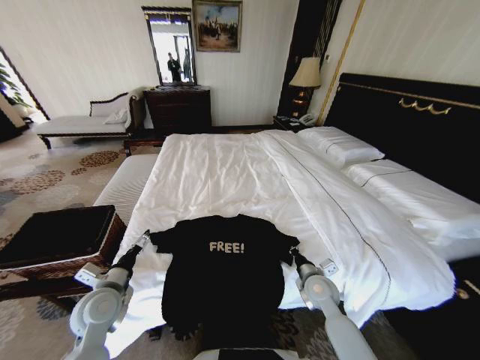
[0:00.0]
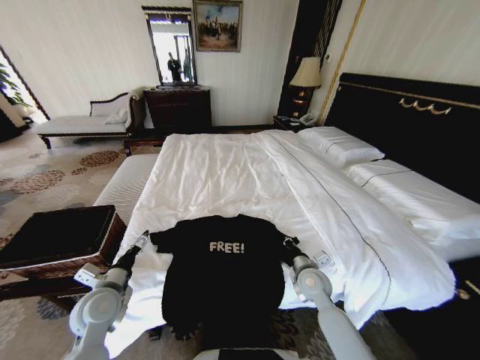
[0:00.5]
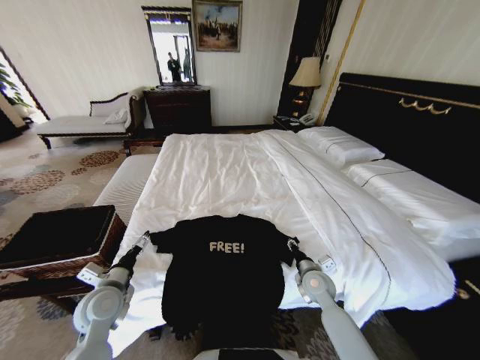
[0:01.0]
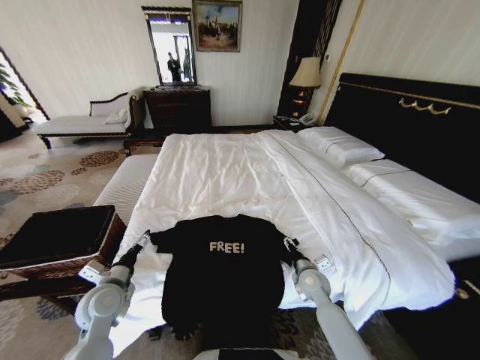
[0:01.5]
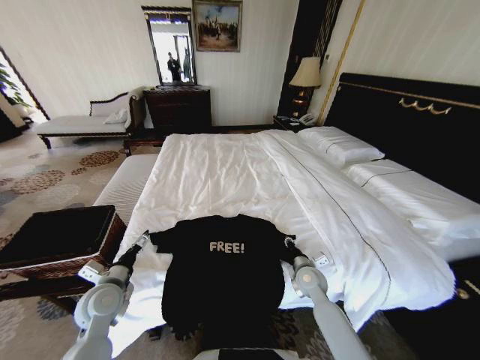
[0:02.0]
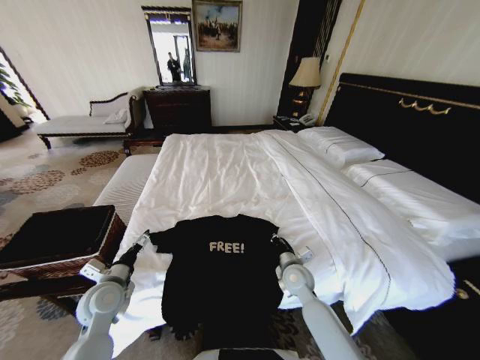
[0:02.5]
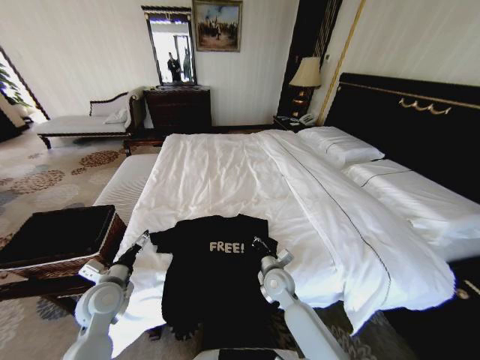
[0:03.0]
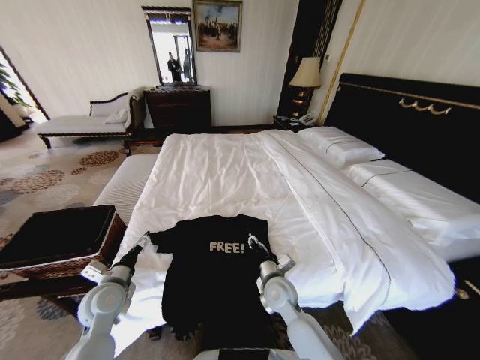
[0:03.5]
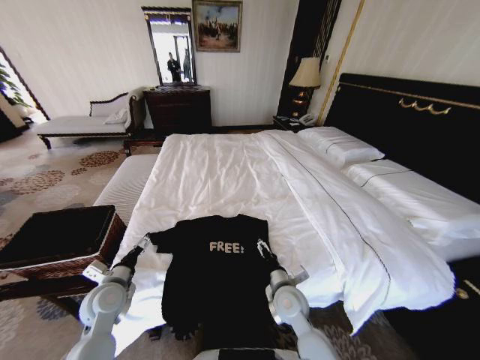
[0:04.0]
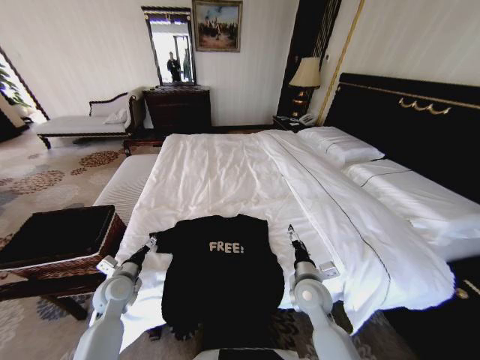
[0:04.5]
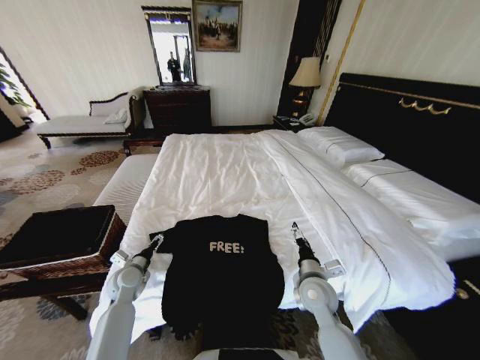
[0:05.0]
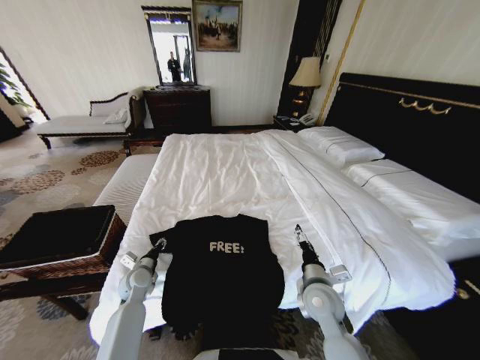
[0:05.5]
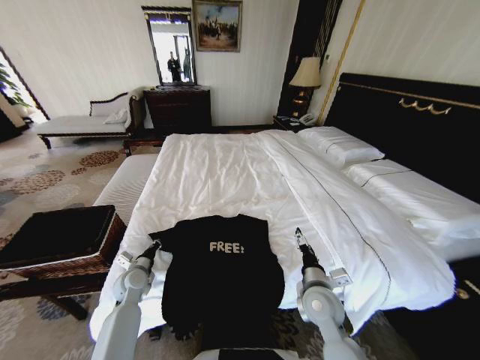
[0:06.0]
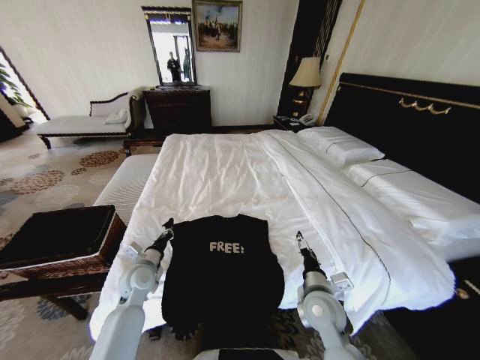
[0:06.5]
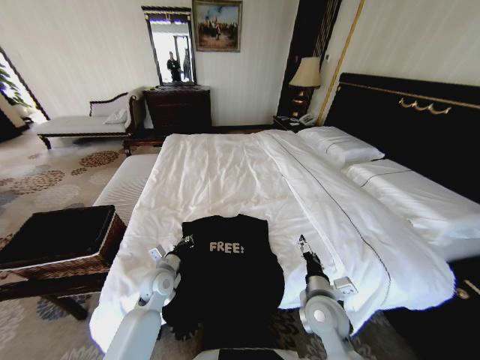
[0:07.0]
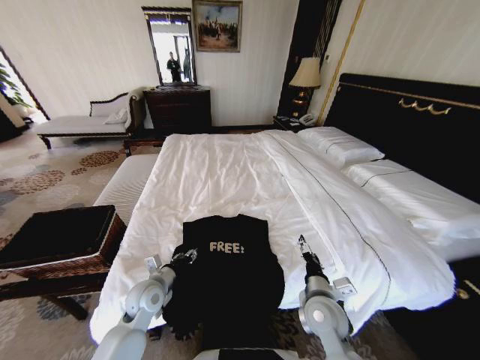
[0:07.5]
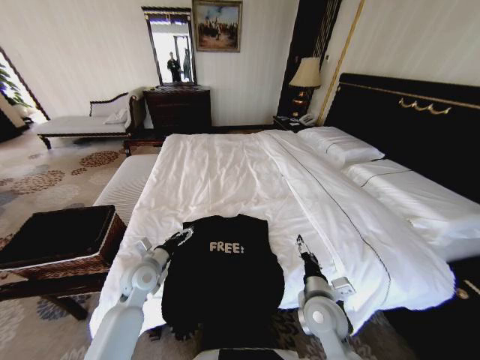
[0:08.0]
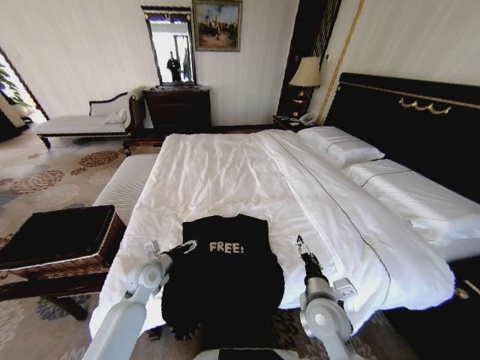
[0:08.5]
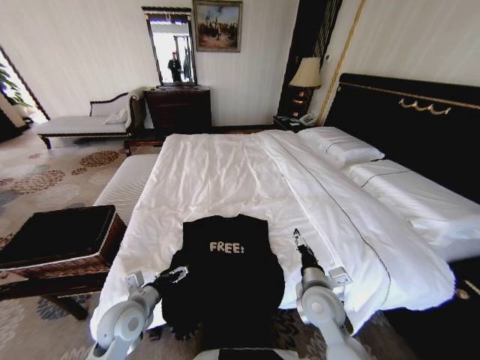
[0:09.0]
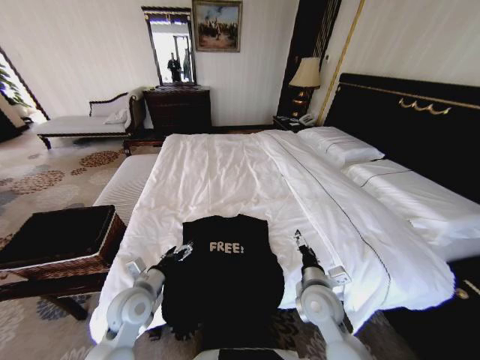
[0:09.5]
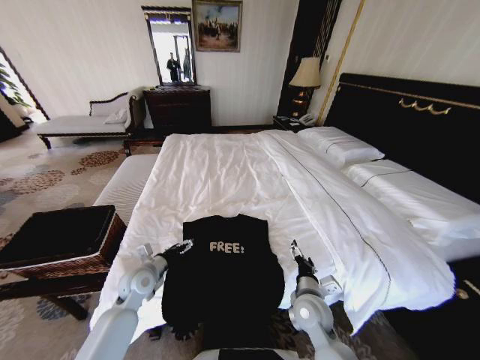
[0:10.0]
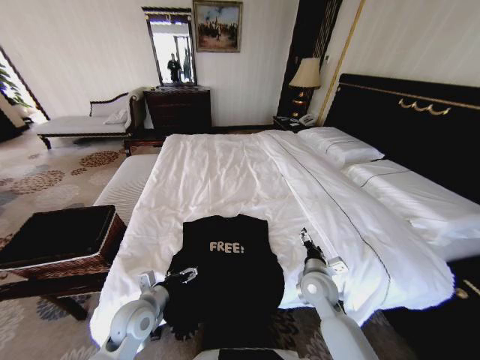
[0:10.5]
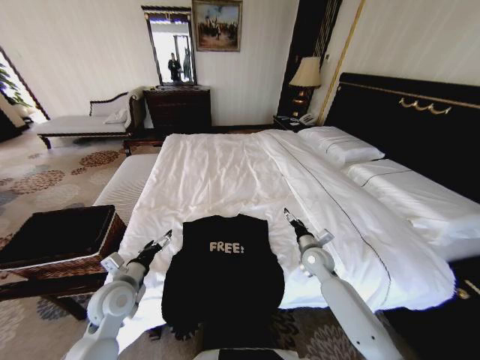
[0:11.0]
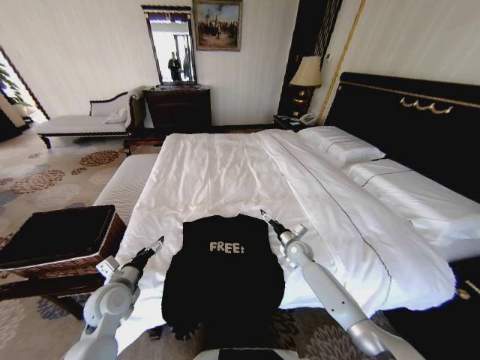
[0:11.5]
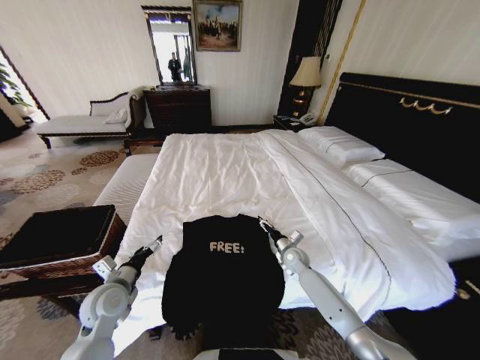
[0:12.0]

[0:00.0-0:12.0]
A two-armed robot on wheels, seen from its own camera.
Task of the whole recording: Fold the clothes on the bed and place them into the basket.
0:00.0 to 0:02.0: The right gripper opens.
0:02.0 to 0:04.0: The right gripper is displaced to the left and backward by some 10 cm, and opens.
0:04.0 to 0:06.0: The right gripper goes some 5 cm to the right. Meanwhile the left gripper travels downward and forward by approximately 10 cm, and closes.
0:06.0 to 0:08.0: The left gripper moves upward and to the right, approximately 10 cm, and opens.
0:08.0 to 0:10.0: The left gripper moves approximately 10 cm backward and comes back.
0:10.0 to 0:12.0: The right gripper shifts roughly 20 cm forward. The left gripper travels backward by roughly 5 cm.

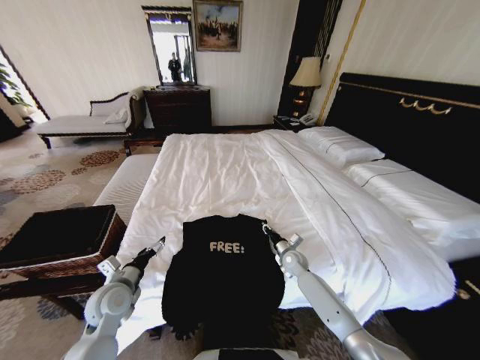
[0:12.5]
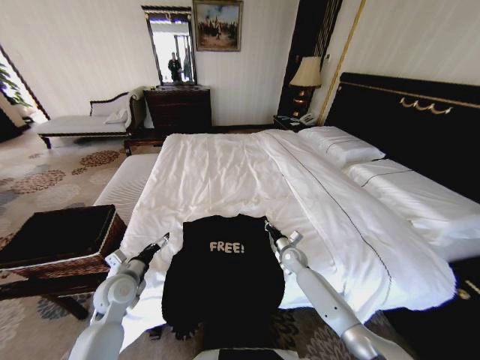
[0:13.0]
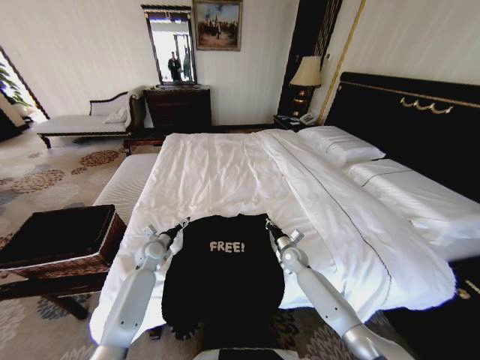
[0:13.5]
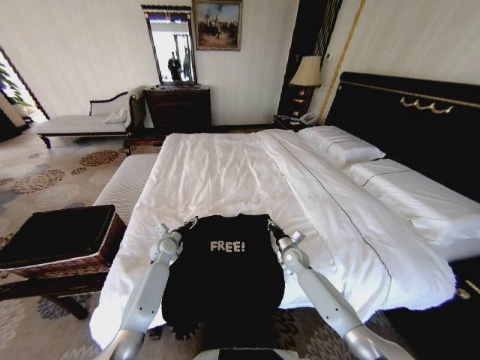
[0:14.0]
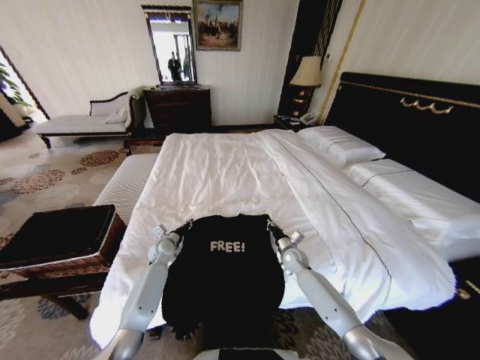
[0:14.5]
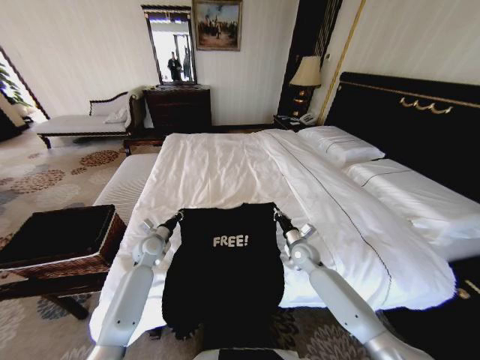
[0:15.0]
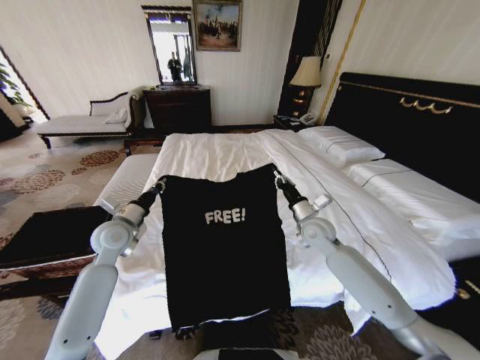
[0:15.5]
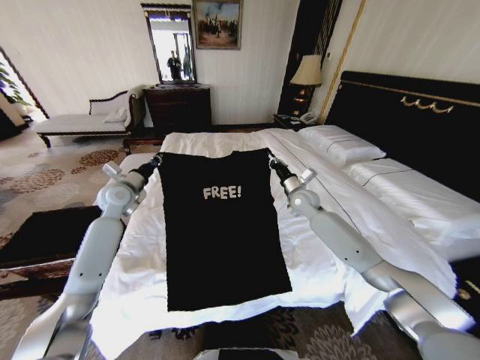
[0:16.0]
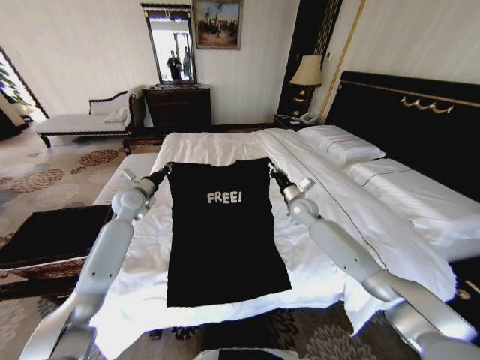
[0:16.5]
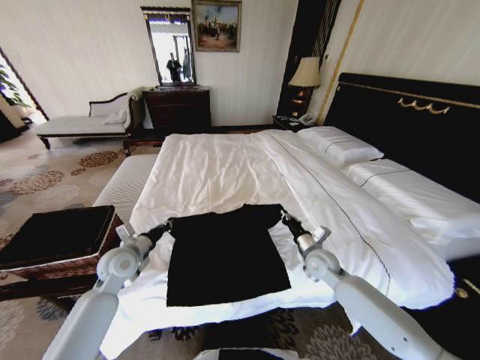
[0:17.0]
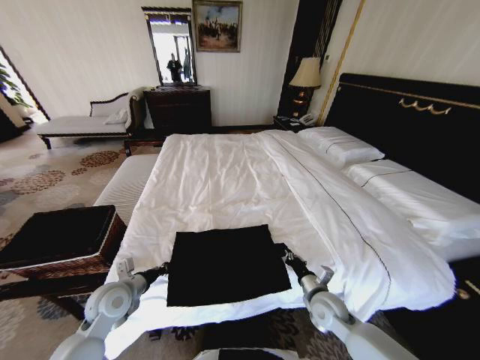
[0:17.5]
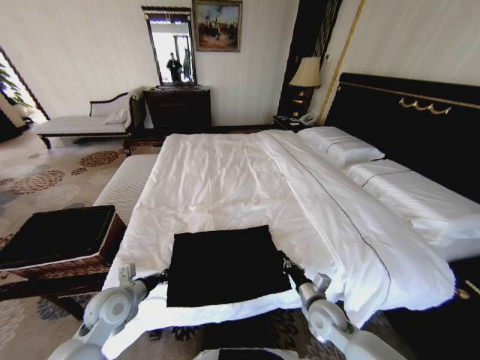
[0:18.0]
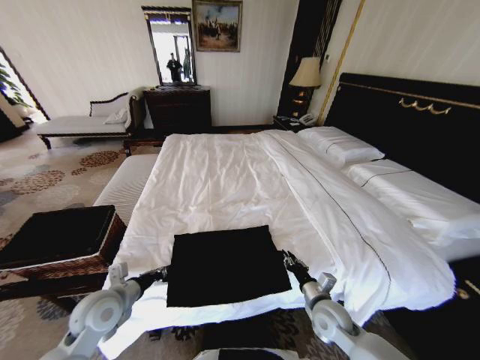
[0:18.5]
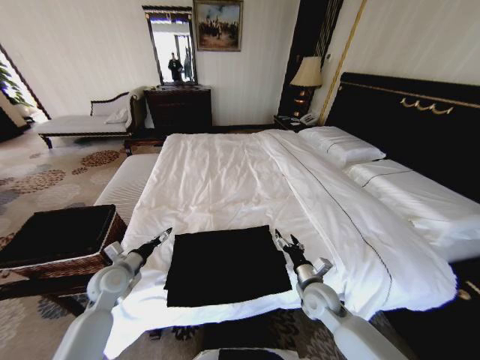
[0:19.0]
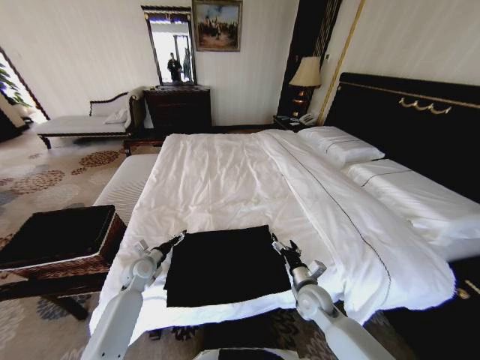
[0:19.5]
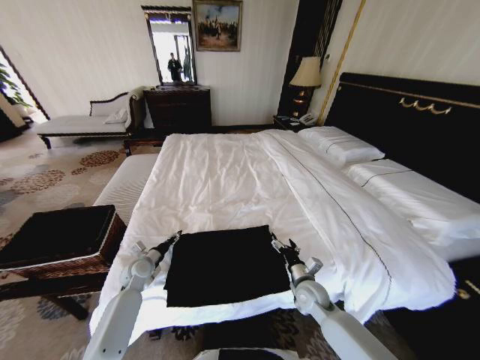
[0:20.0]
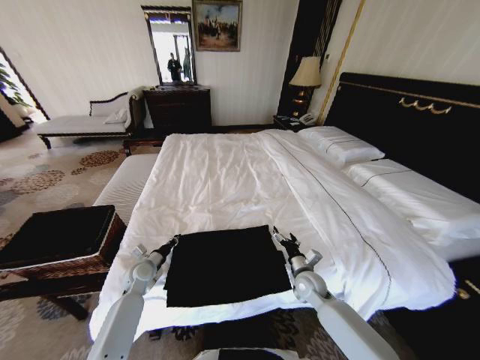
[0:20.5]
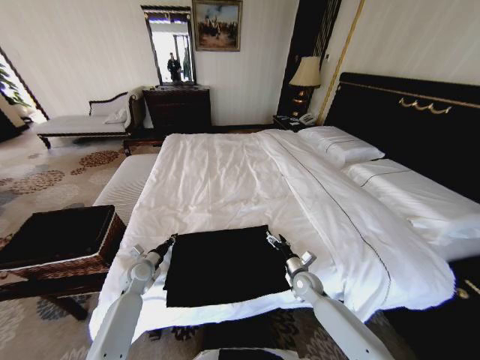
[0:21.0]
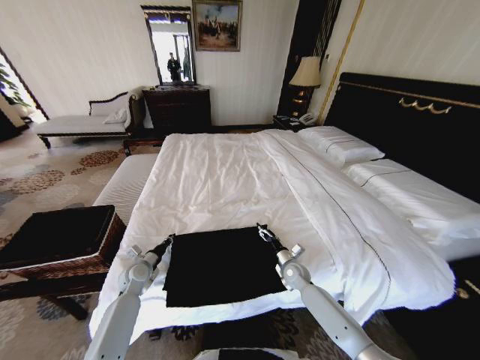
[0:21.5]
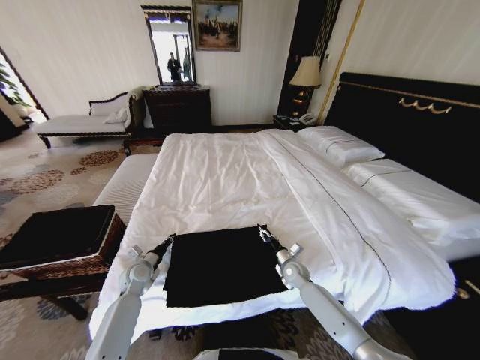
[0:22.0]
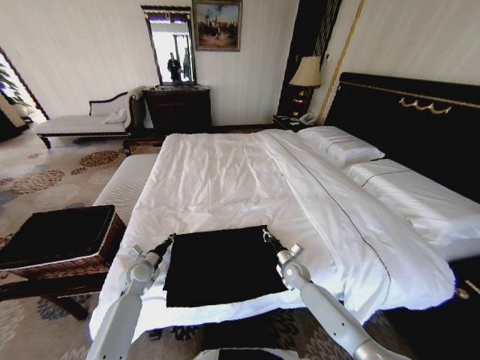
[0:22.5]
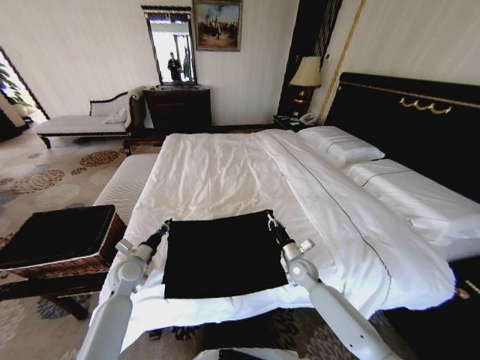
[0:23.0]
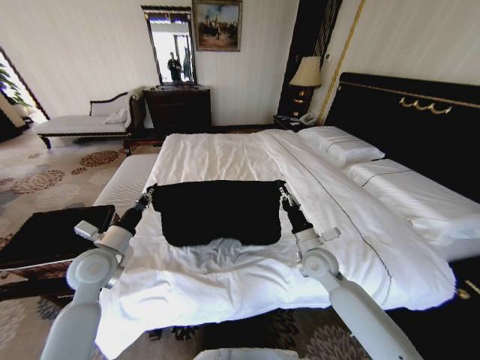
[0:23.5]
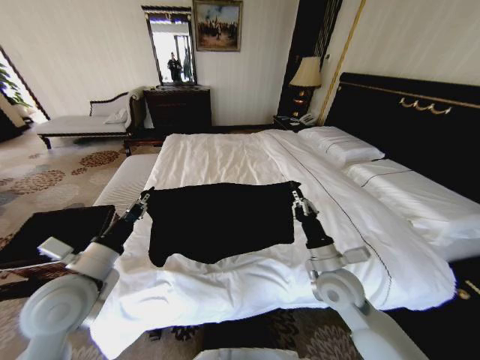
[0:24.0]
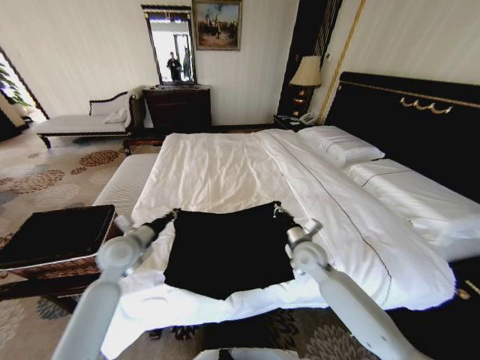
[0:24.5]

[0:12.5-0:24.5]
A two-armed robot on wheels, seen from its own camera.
Task of the whole recording: Fold the clothes on the bed and place them into the basket.
0:12.5 to 0:14.5: The left gripper moves forward and downward, roughly 20 cm, and closes.
0:14.5 to 0:16.5: The left gripper is displaced upward by roughly 20 cm; the right gripper shifts about 20 cm upward and forward.
0:16.5 to 0:18.5: The left gripper goes about 25 cm backward. Meanwhile the right gripper travels backward and downward by roughly 30 cm.
0:18.5 to 0:20.5: The right gripper heads forward, covering roughly 10 cm, and opens, while the left gripper heads forward and downward, covering approximately 20 cm, and opens, then closes again.
0:20.5 to 0:22.5: The right gripper is displaced downward and forward by approximately 10 cm, and closes.
0:22.5 to 0:24.5: The two grippers go some 20 cm upward.

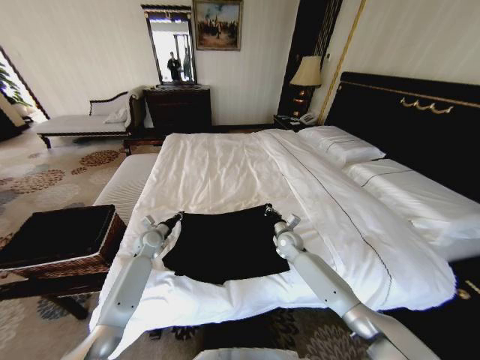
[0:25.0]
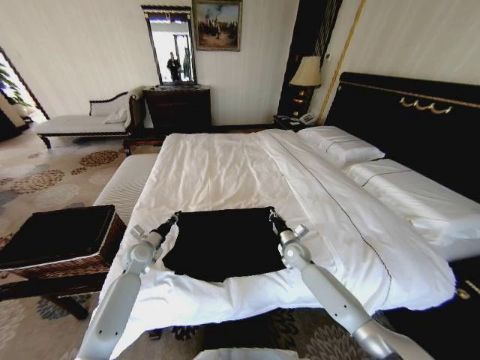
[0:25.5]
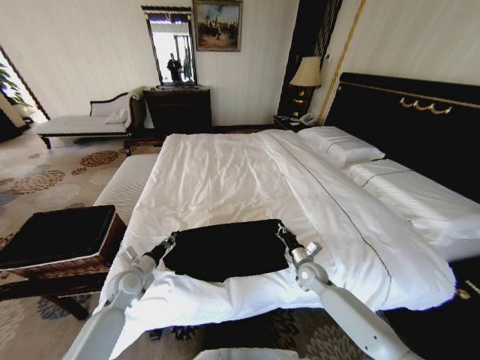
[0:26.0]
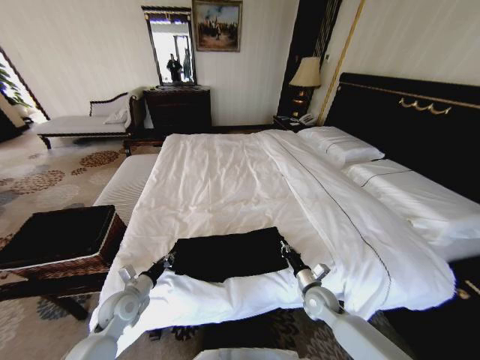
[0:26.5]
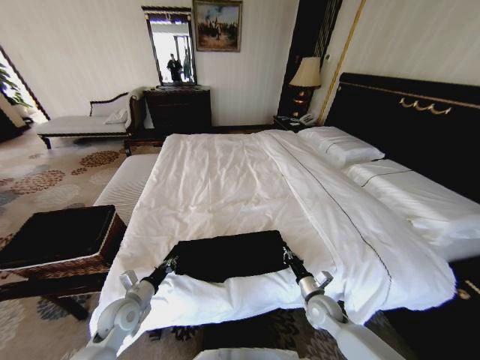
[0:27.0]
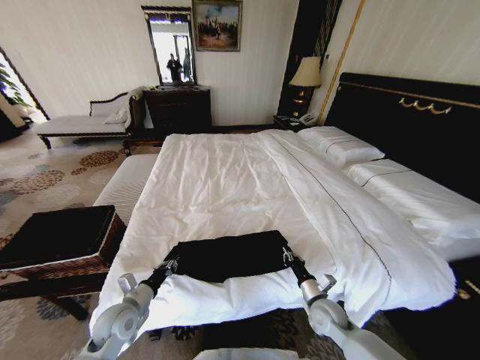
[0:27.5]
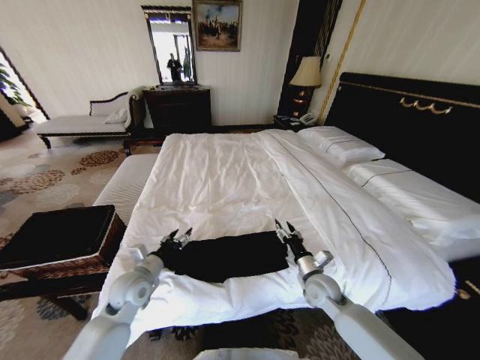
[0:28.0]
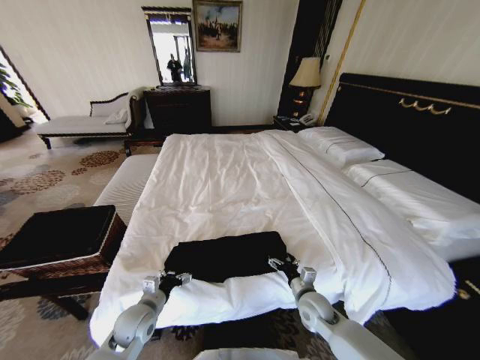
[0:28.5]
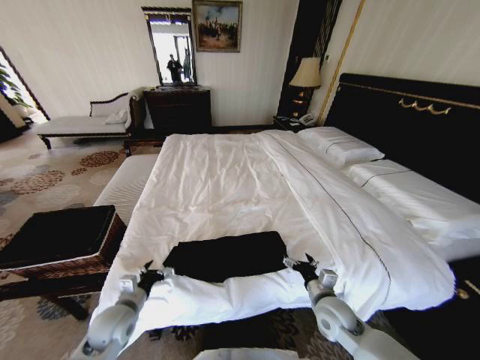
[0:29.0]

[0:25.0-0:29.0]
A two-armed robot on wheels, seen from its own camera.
Task of the whole recording: Fold the clothes on the bed and place them into the basket.
0:25.0 to 0:27.0: Both grippers move backward, roughly 20 cm.
0:27.0 to 0:29.0: The right gripper moves up and down over roughly 10 cm, changing direction 2 times, and opens; the left gripper opens.
